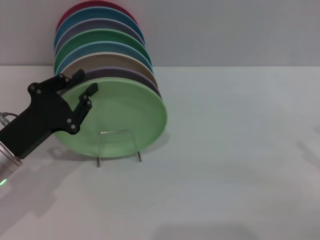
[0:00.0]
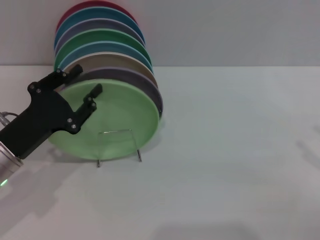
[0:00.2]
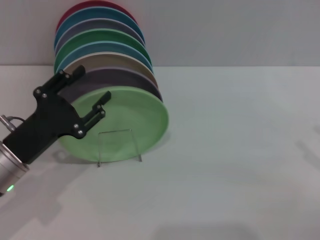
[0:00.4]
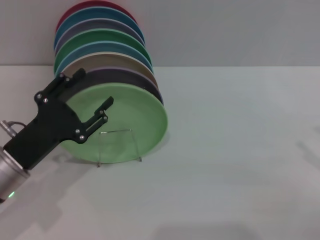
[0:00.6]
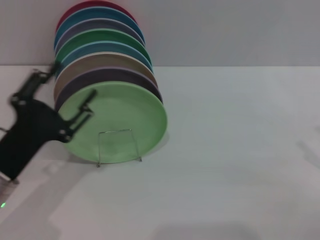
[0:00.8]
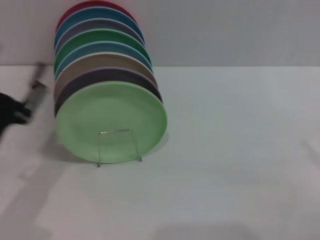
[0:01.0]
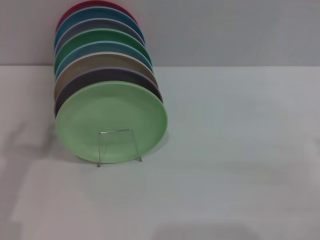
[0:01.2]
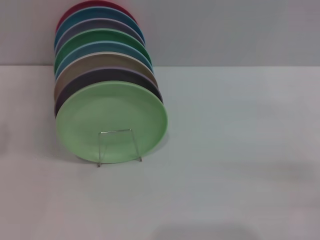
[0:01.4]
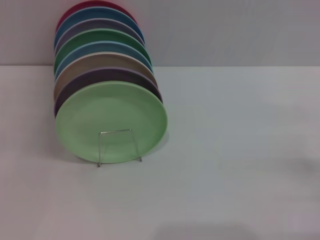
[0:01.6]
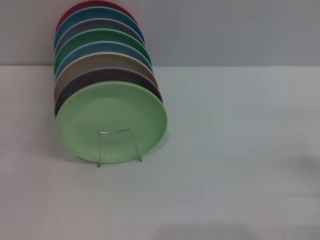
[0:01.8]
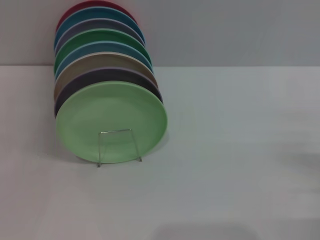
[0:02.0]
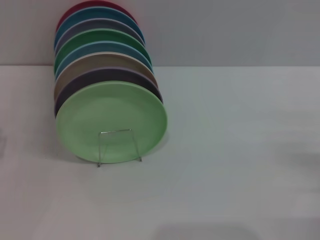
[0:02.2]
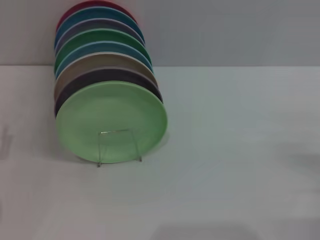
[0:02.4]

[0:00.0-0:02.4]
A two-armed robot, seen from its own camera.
Task of the whole recording: Grip the plate with one hand, pass it to the other, then set it on the shelf.
0:00.0 to 0:01.2: The left gripper goes roughly 5 cm backward, and opens.
0:01.2 to 0:02.4: The right gripper travels downward by about 5 cm.
